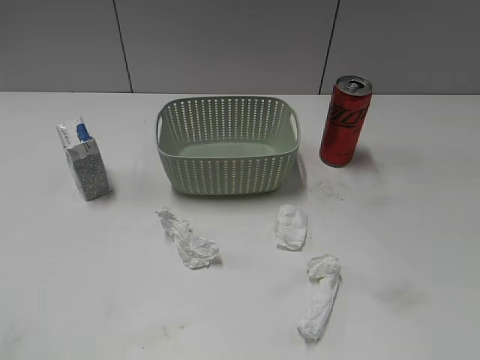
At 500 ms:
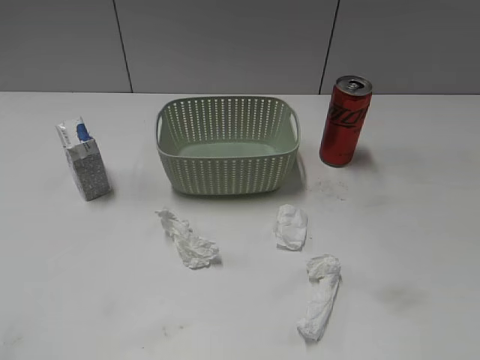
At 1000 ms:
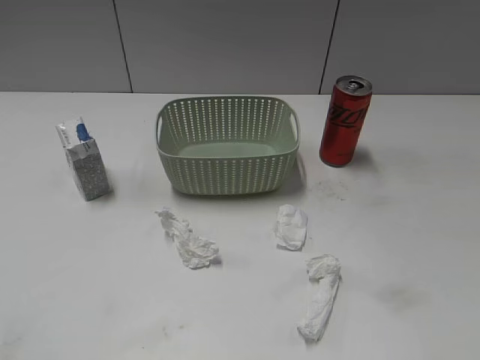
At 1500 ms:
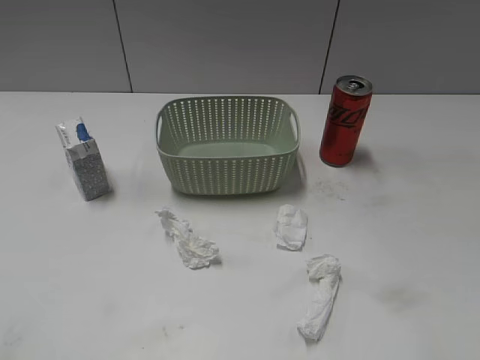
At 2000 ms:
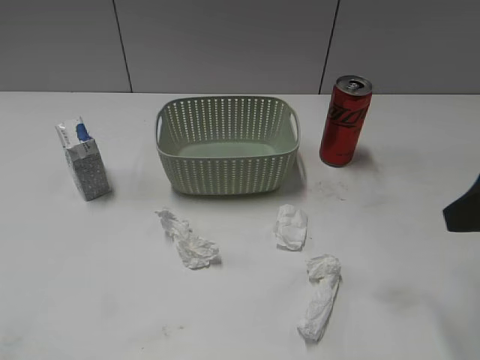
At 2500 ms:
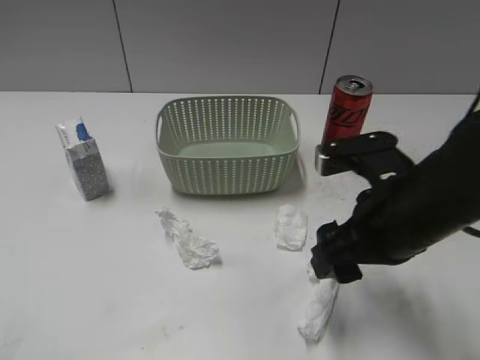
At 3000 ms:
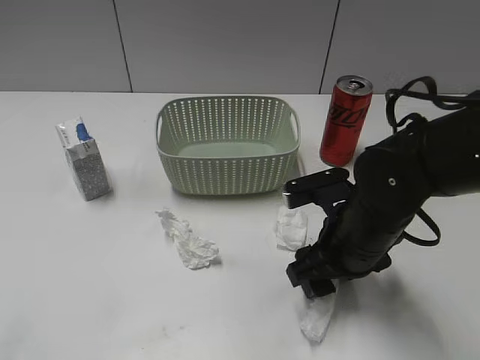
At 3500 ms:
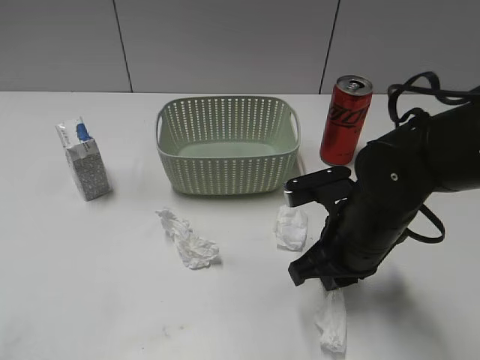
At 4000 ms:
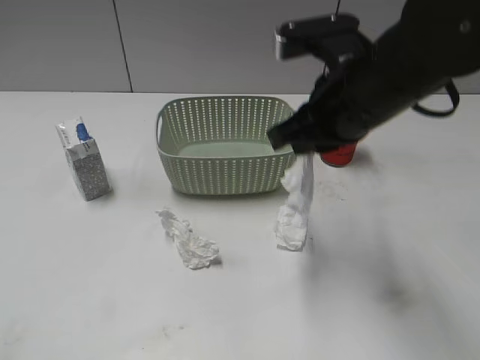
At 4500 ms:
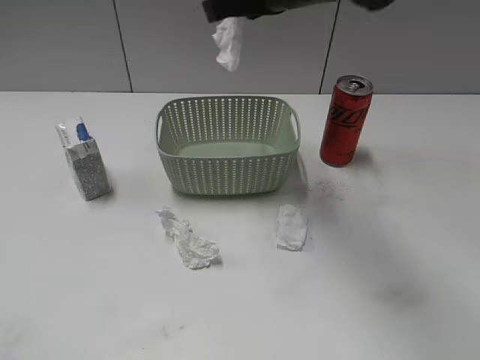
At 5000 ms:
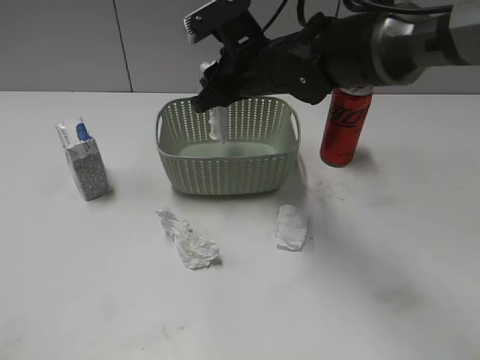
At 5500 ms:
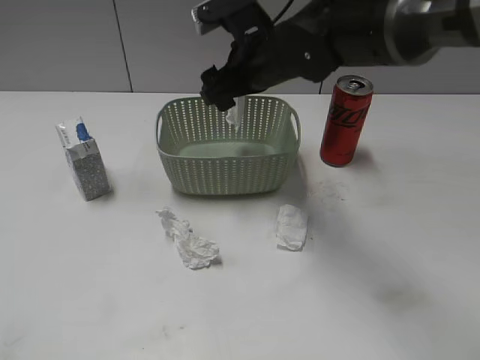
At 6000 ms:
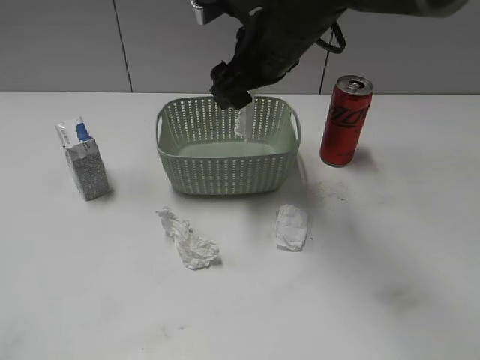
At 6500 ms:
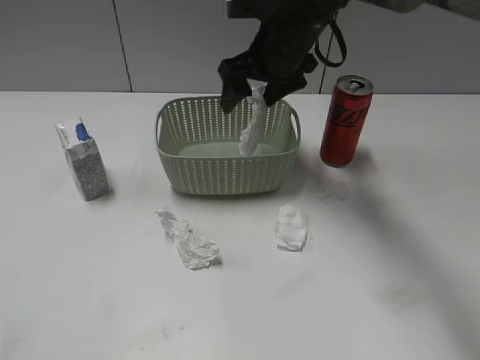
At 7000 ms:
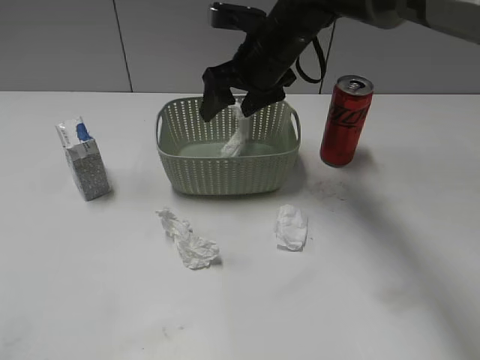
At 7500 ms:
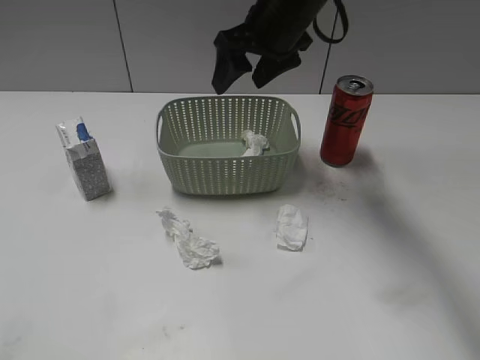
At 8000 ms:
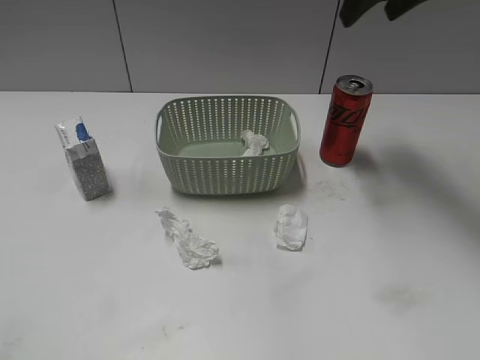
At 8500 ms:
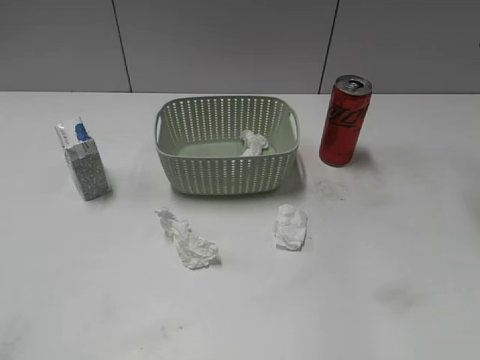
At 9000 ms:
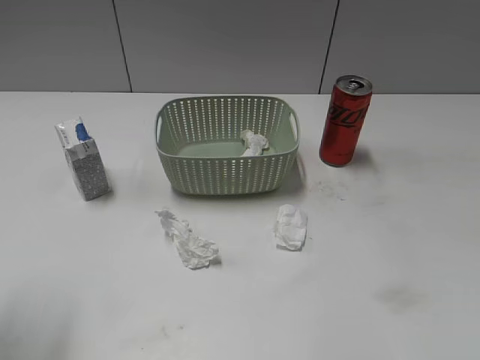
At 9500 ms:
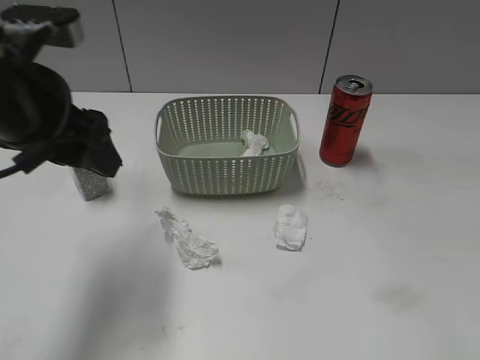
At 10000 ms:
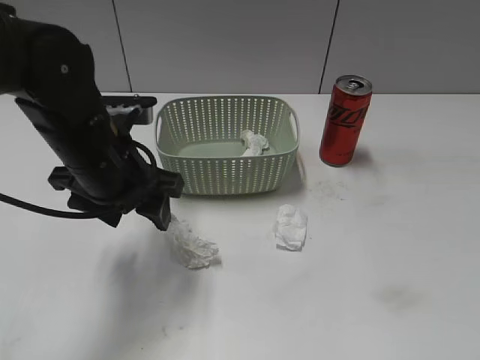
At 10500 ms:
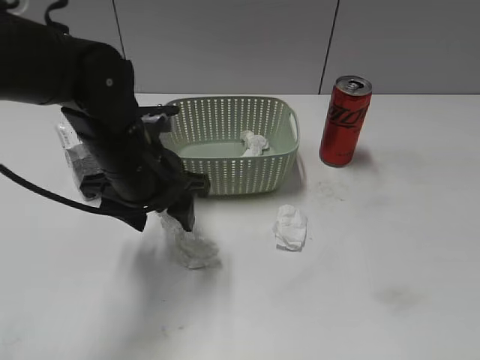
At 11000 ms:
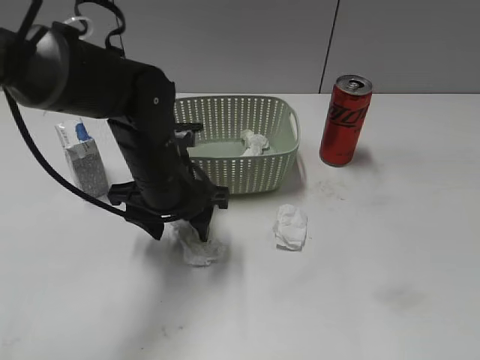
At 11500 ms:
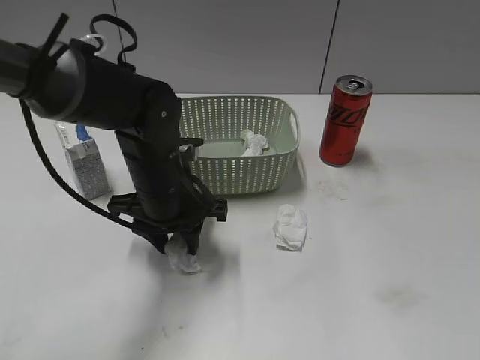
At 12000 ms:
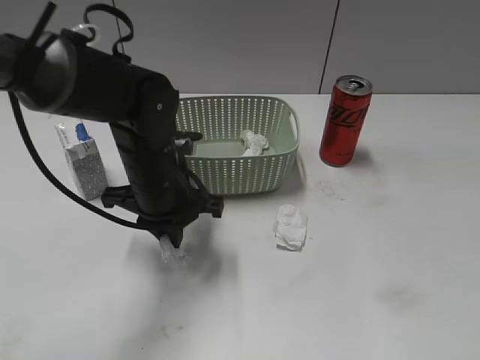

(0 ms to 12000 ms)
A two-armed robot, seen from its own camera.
Step, 2000 ms - 3500 ms: Grasp the waste paper with right gripper.
Step, 4000 ms - 7000 ms: Place the waste paper in the basket with right gripper.
Step, 7500 ms - 11500 ms: Grasp the waste paper with left gripper.
2000 ms - 4000 ms: The right gripper shifts some 20 cm to the left and forward, and closes its fingers.
4000 ms - 6000 ms: The right gripper moves forward and to the left, about 10 cm, and opens up.
6000 ms - 8000 ms: The right gripper heads to the right and upward, covering about 20 cm.
8000 ms - 10000 ms: The right gripper heads backward, covering about 40 cm. Meanwhile the left gripper goes about 30 cm forward and to the right.
10000 ms - 12000 ms: The left gripper moves roughly 5 cm, and closes.

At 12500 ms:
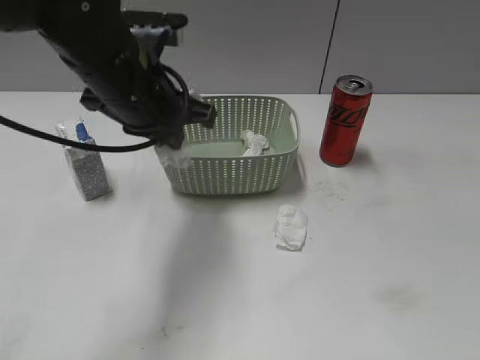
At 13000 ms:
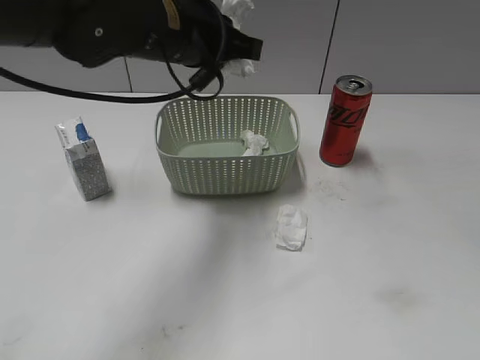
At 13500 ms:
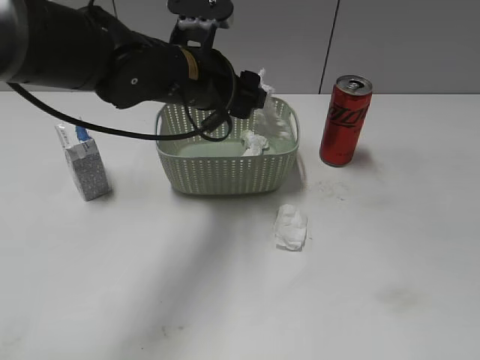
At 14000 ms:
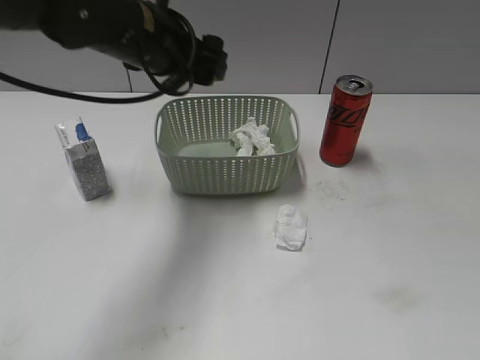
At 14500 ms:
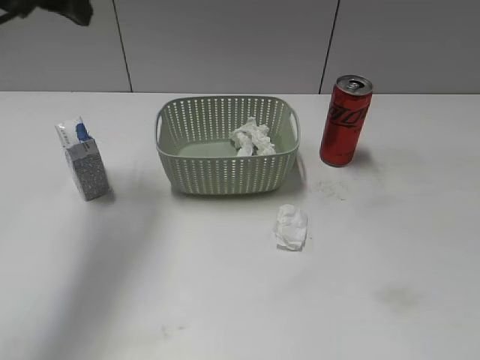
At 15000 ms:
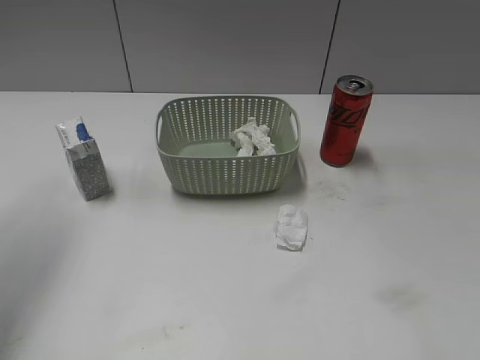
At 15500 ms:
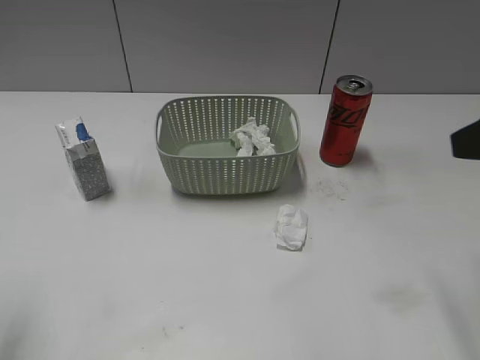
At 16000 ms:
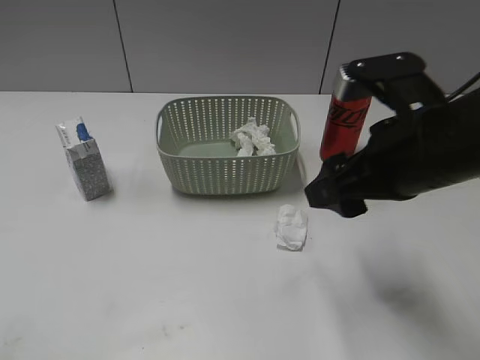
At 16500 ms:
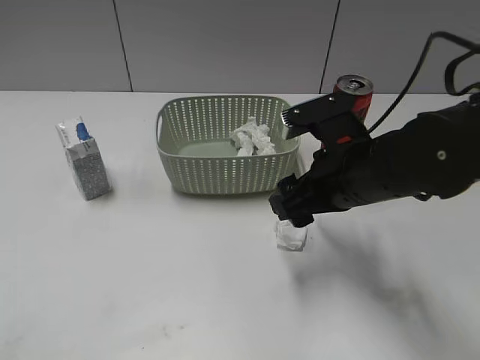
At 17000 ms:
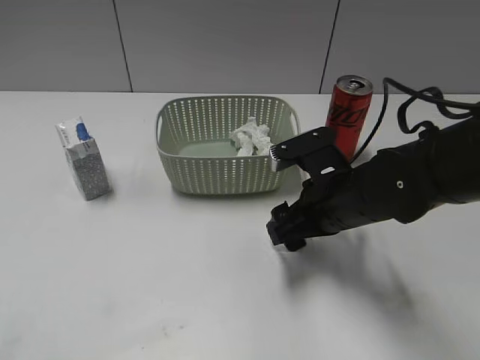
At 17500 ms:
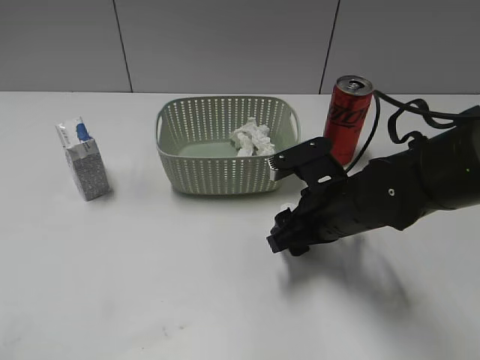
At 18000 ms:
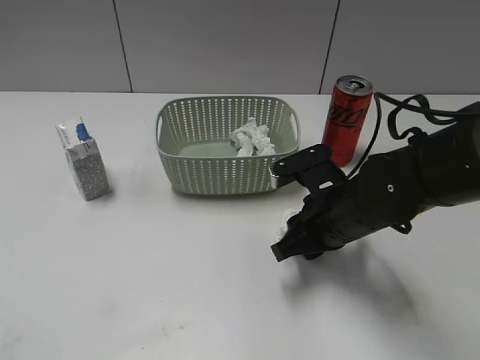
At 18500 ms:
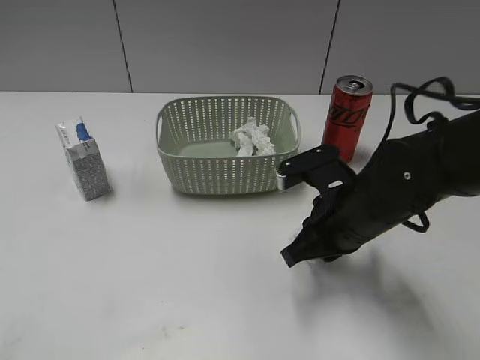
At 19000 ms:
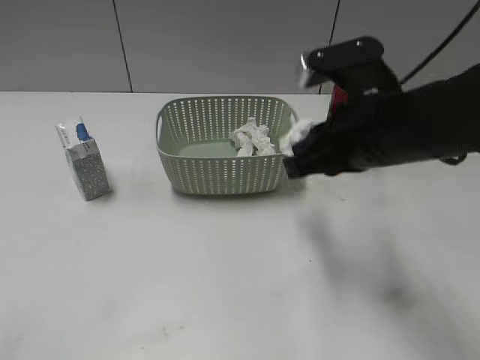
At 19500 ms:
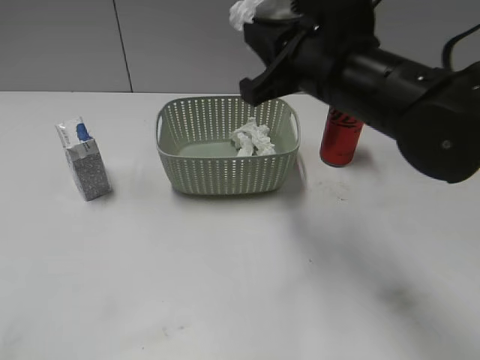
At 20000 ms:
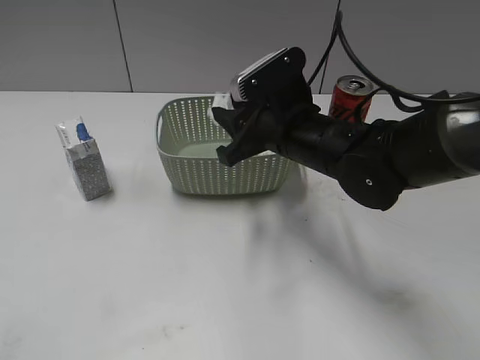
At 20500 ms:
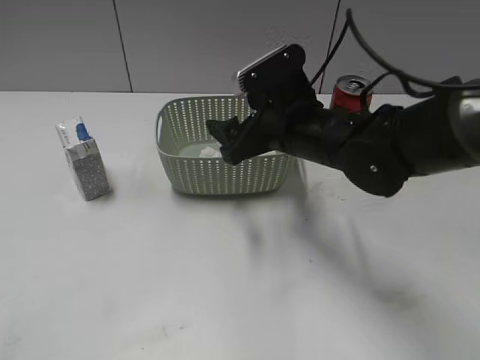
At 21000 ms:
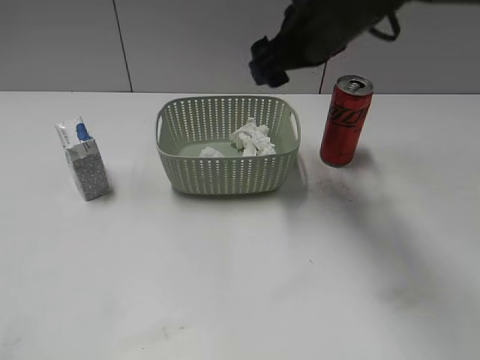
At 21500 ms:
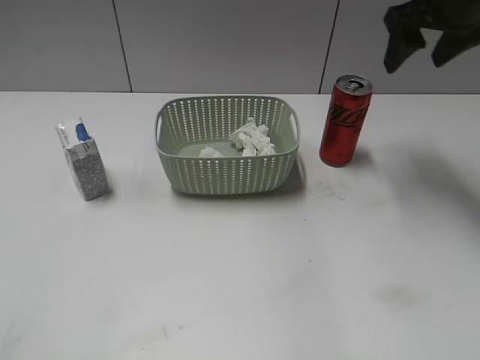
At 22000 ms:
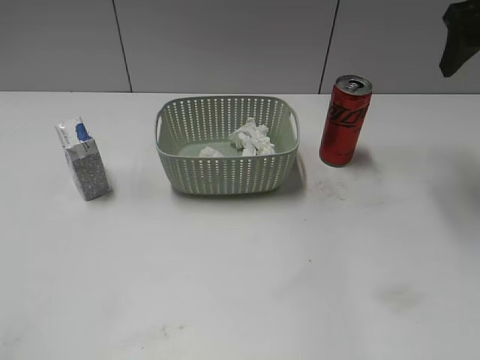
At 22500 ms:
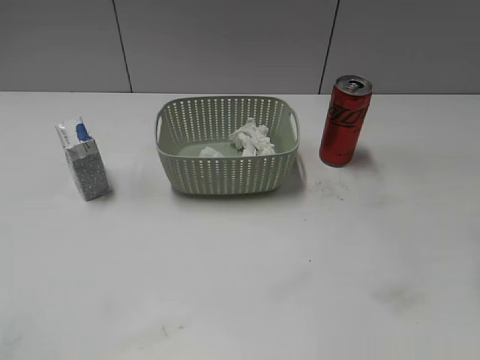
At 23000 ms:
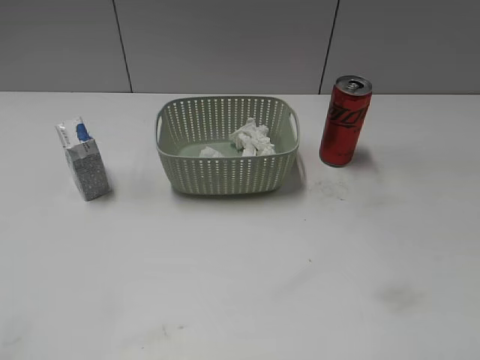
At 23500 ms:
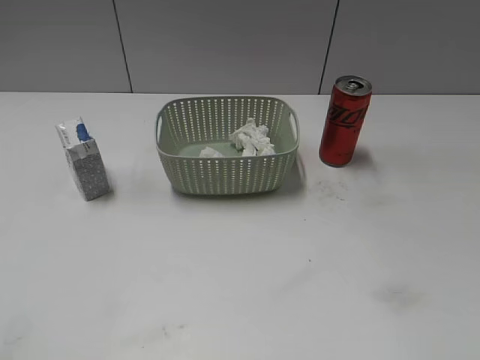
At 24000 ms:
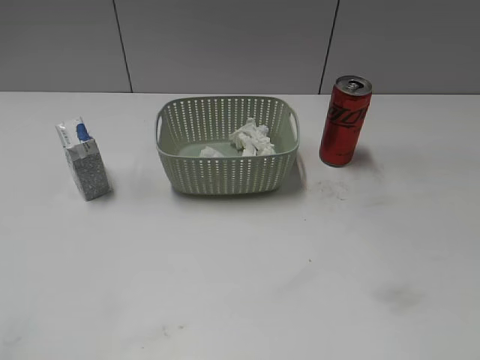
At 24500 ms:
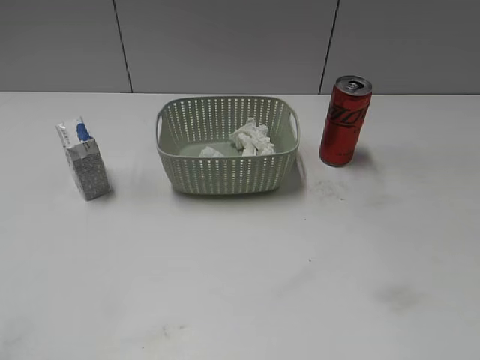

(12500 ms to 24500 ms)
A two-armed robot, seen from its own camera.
Step, 12500 ms - 13500 ms: Place the waste paper in the basket with left gripper.
Step, 14000 ms - 18500 ms: Grasp the waste paper with right gripper.
Step, 19000 ms - 20500 ms: Place the waste paper in the basket with right gripper.
12500 ms - 14500 ms: The left gripper shifts about 15 cm to the left and upward, and opens.
14500 ms - 16500 ms: The left gripper goes approximately 35 cm backward, while the right gripper heads forward, to the left and downward, covering about 35 cm.
16500 ms - 18500 ms: The right gripper closes its fingers.
18500 ms - 20500 ms: The right gripper heads forward and to the left, covering some 10 cm, and opens up.
20500 ms - 22500 ms: The right gripper goes about 25 cm to the right, upward and backward.

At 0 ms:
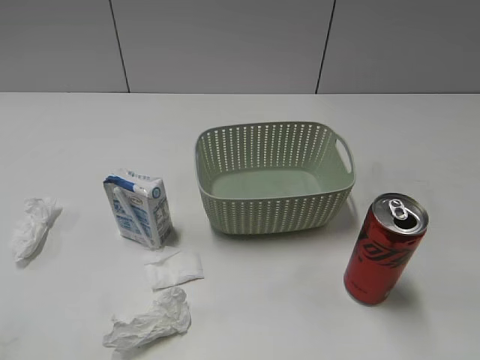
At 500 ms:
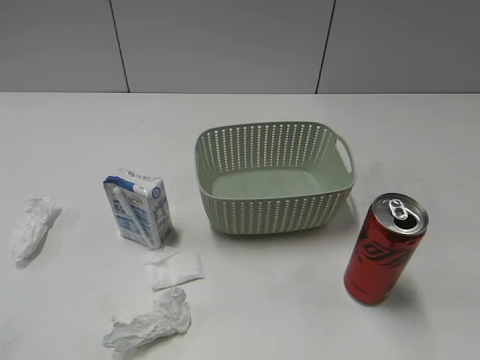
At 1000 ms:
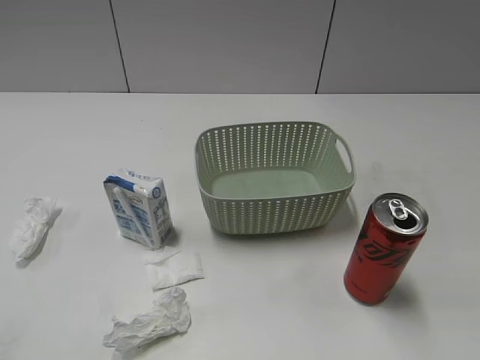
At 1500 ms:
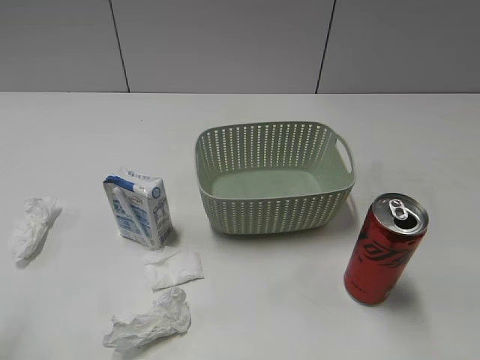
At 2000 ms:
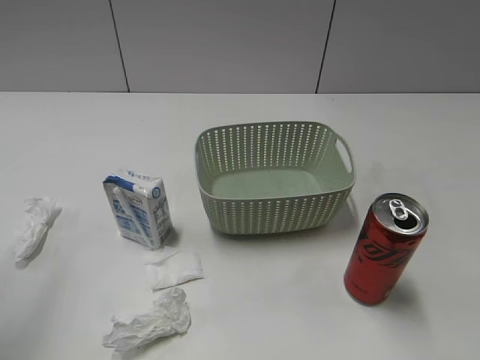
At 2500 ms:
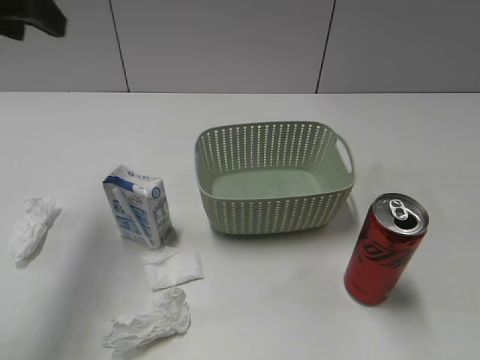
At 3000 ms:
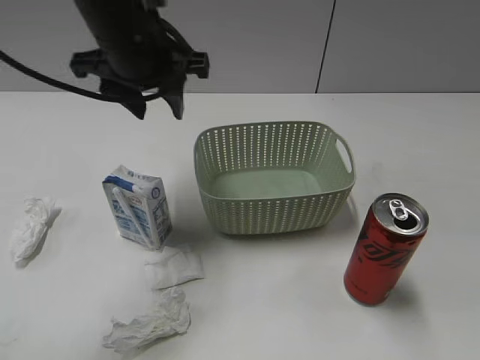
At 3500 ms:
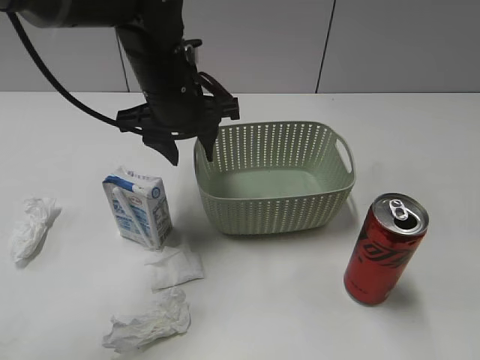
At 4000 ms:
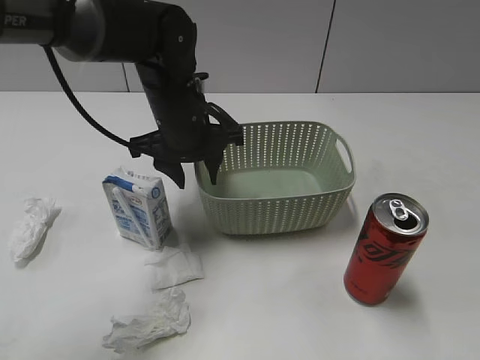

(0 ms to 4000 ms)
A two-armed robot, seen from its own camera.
2000 ms - 4000 ms: The left gripper shifts some 35 cm to the right, downward and forward.
